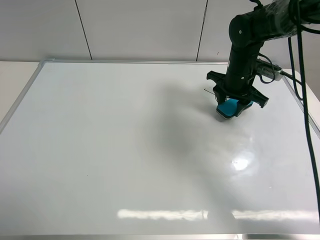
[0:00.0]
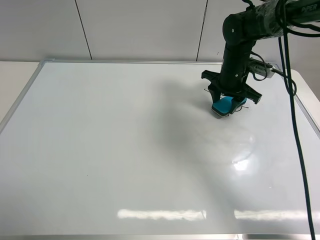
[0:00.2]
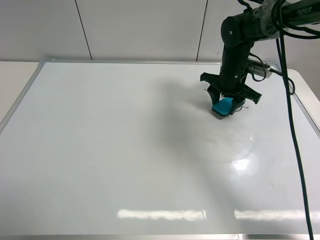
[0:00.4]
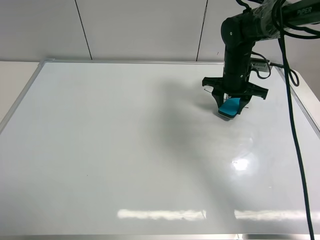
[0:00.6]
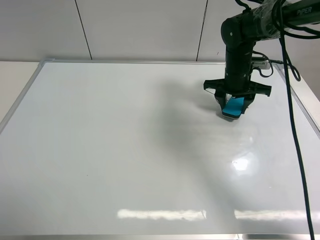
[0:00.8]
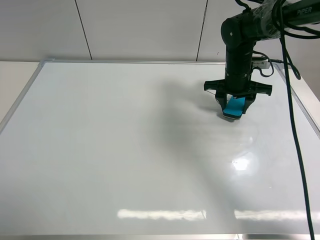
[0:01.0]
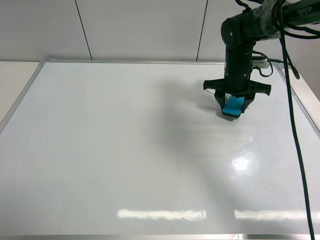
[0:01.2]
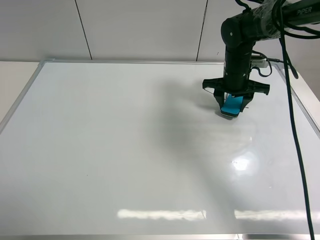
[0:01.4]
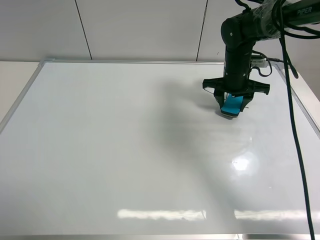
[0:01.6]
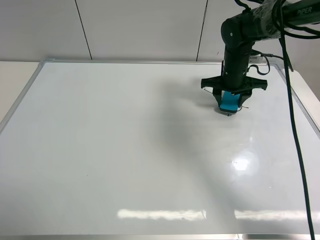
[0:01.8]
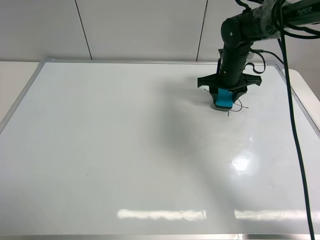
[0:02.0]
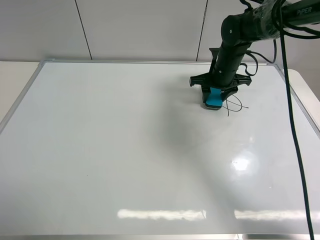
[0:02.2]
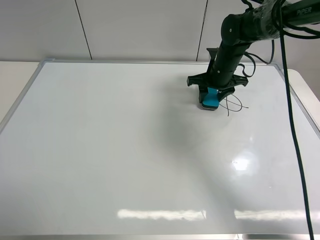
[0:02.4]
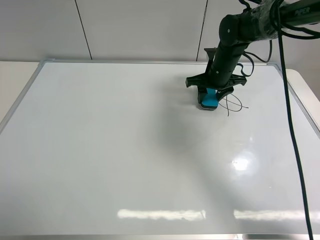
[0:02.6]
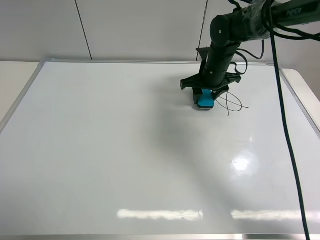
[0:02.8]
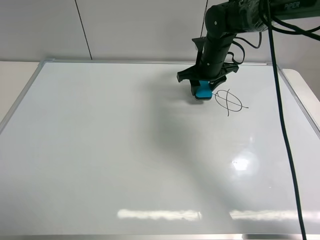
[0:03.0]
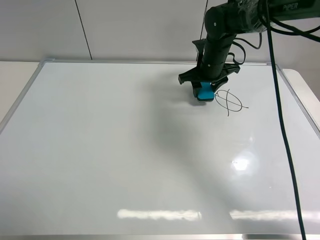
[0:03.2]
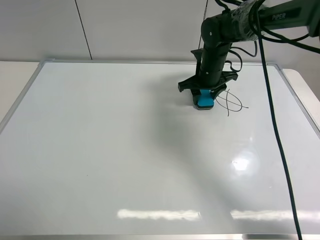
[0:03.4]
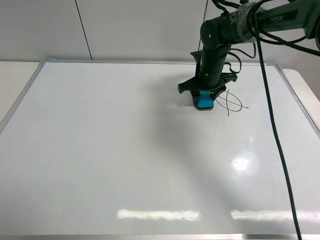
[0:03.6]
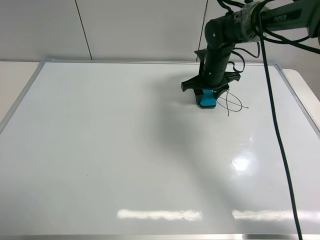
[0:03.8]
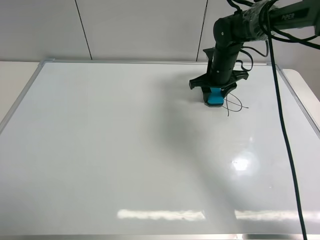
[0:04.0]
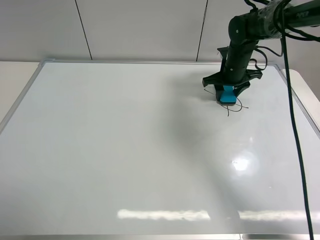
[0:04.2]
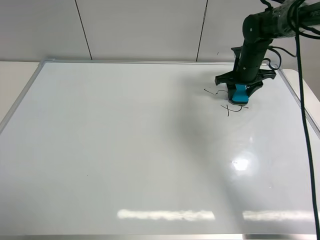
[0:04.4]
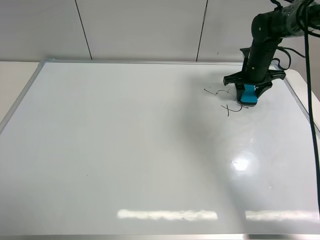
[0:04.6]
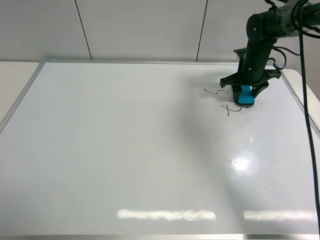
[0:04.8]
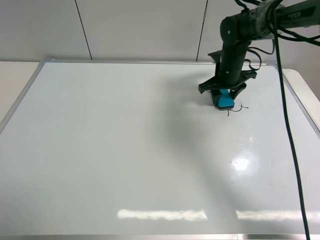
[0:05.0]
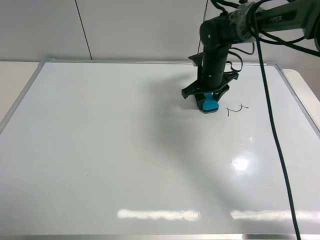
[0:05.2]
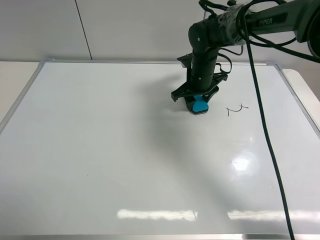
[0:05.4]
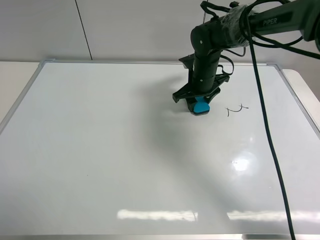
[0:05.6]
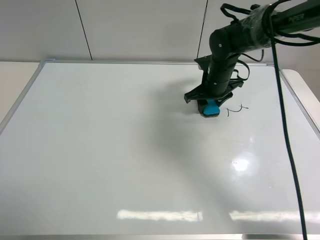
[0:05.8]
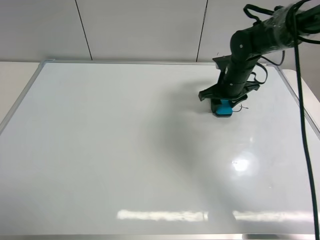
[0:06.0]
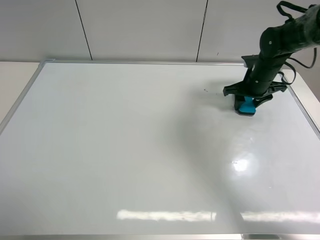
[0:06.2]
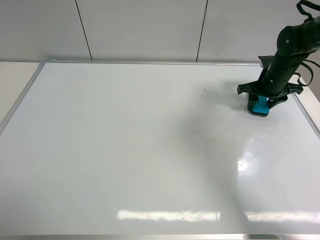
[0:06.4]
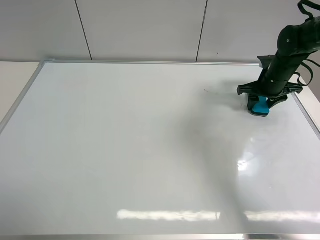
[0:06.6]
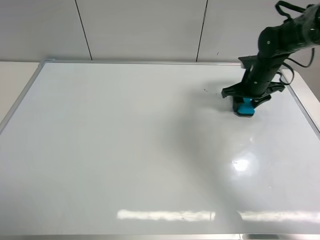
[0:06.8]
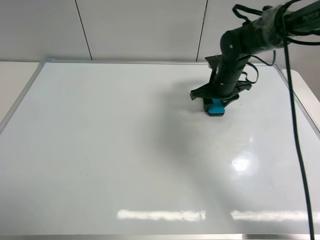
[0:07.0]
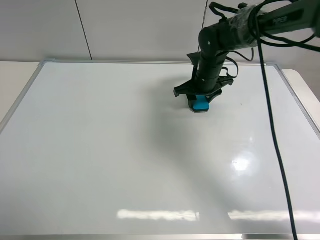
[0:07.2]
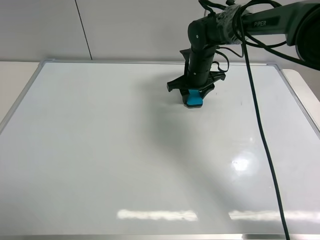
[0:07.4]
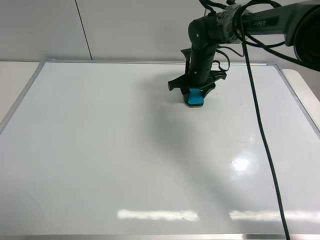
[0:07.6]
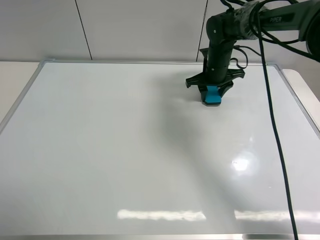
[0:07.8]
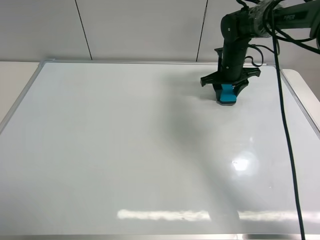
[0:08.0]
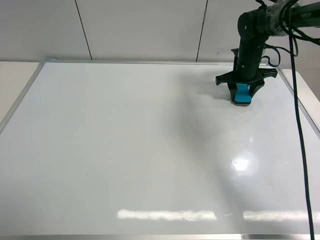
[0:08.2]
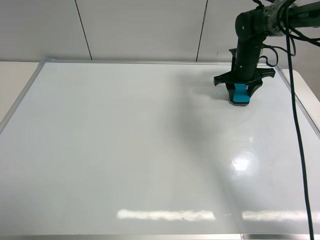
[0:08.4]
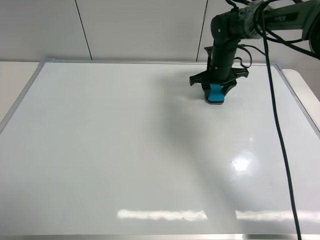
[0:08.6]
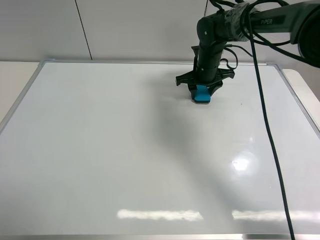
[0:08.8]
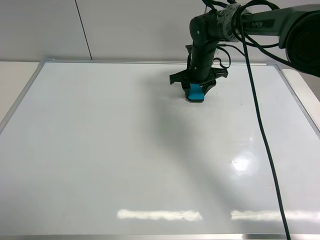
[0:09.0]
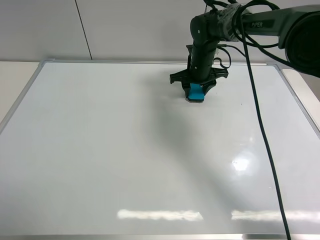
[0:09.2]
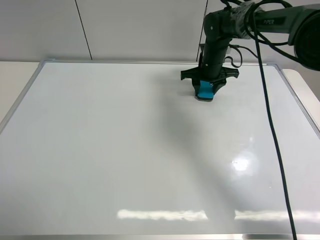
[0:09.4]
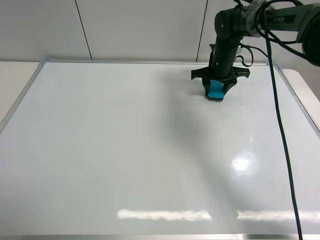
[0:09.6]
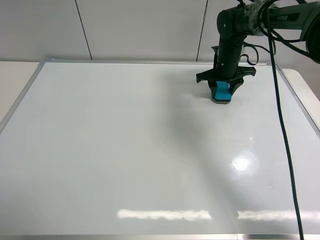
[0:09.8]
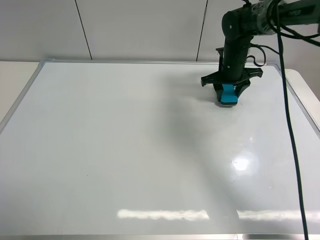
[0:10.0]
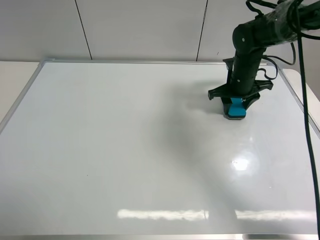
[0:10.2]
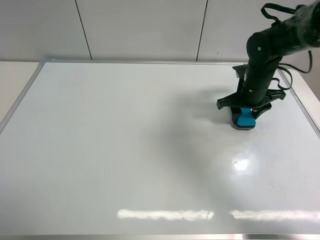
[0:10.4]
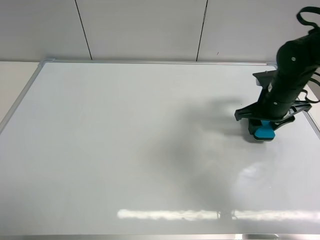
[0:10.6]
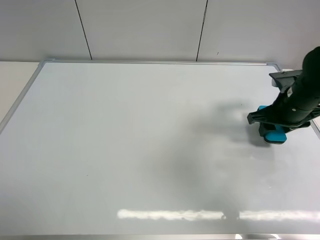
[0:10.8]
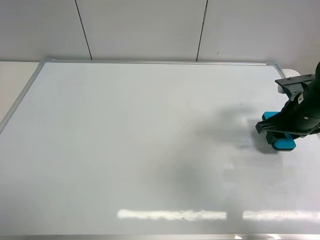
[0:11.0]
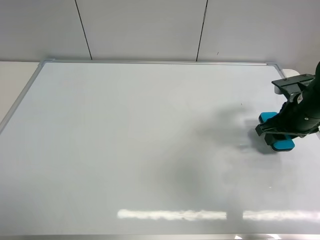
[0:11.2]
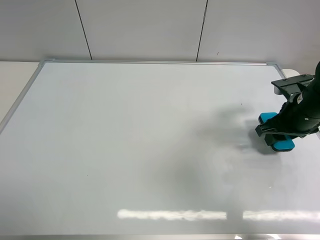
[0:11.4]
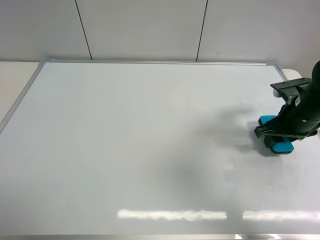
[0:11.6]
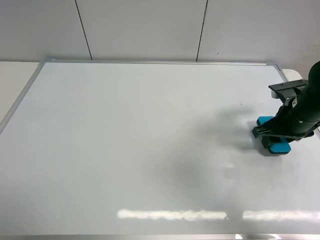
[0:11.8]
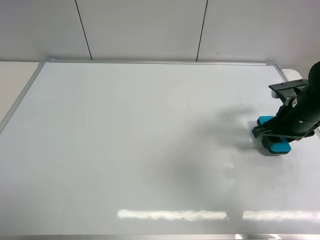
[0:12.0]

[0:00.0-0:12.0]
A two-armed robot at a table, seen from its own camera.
Task of the whole recording: use the left gripper to place the eraser in the right, use the right gripper to pick up the eraser, wipe the notes on the whiteboard clean, and then put it down.
Step, 0:00.0 to 0:09.6: Wipe off the writing on the board with right gripper.
0:01.6 to 0:03.0: The right gripper heads to the left, covering about 5 cm.
0:03.0 to 0:04.4: The right gripper moves to the right, approximately 10 cm.
0:04.4 to 0:06.0: The right gripper shifts roughly 5 cm backward, and goes to the left and returns, some 15 cm each way.
0:06.0 to 0:07.6: The right gripper is displaced to the left by approximately 10 cm.
0:07.6 to 0:09.0: The right gripper travels to the right and back again, approximately 10 cm each way.
0:09.0 to 0:10.4: The right gripper is displaced to the right and backward by about 15 cm.
0:10.4 to 0:12.0: The right gripper heads backward and to the right, covering roughly 10 cm.

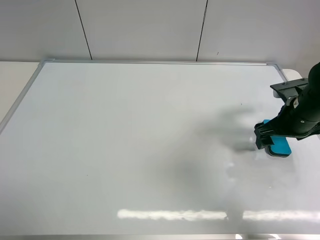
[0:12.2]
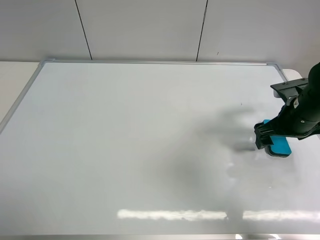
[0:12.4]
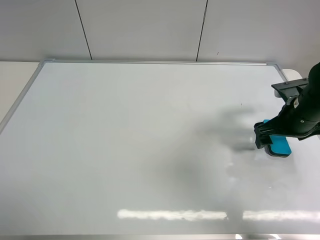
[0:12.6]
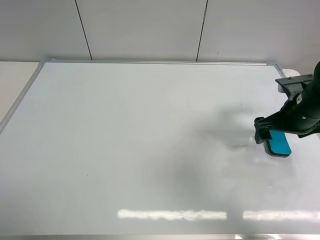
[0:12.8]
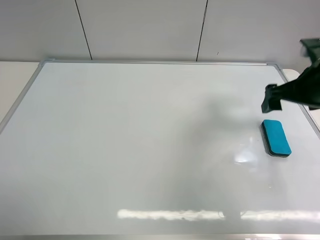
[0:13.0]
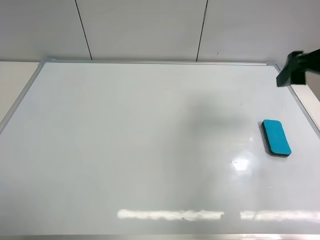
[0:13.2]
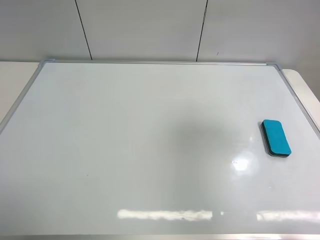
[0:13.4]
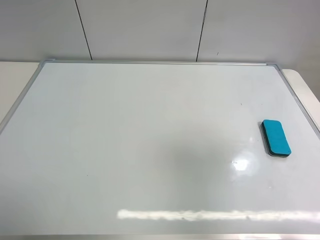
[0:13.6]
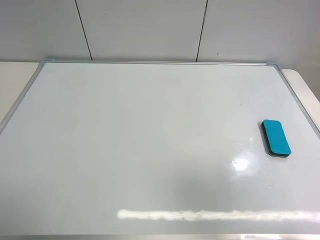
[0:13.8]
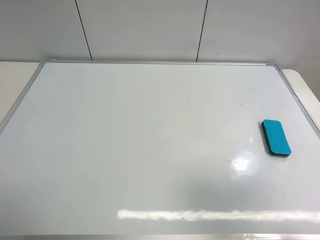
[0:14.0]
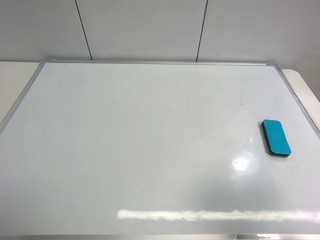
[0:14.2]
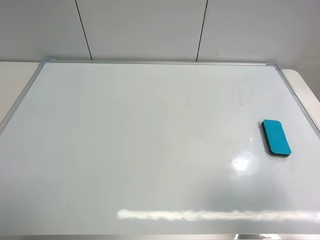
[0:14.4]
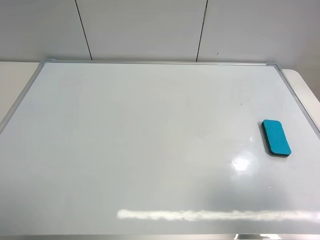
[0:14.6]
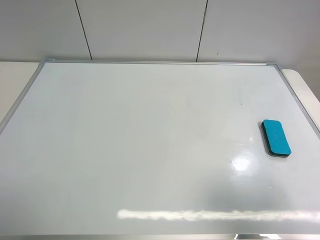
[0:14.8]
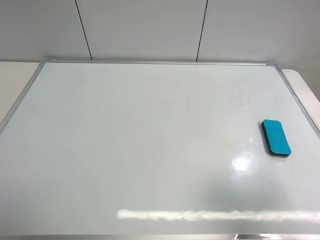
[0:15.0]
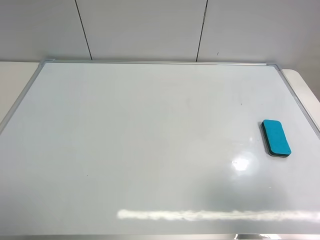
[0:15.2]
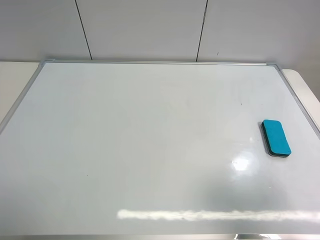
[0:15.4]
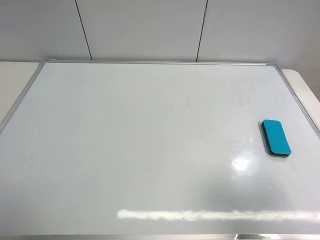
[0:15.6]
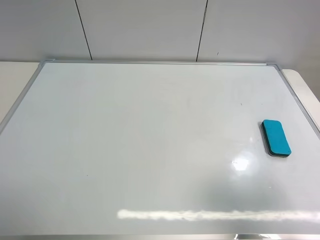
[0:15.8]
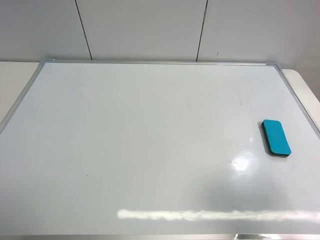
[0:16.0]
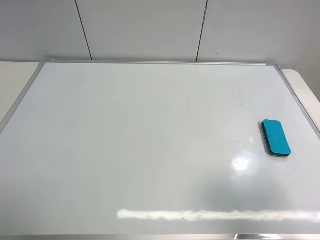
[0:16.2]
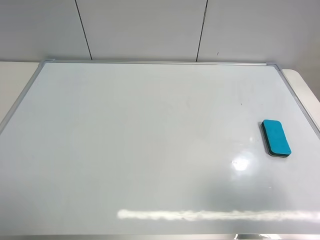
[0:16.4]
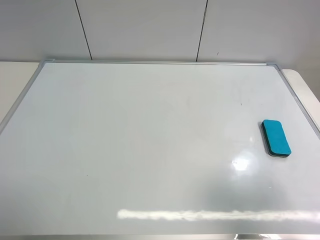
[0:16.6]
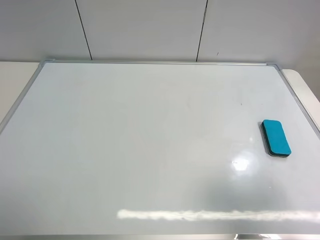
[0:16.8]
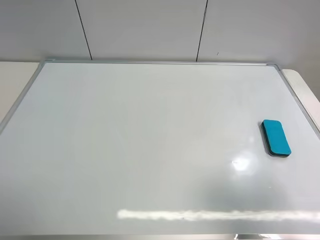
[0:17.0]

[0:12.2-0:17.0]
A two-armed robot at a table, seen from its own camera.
Task of the whole recording: use the left gripper to place the eraser in the right, use the right gripper to pick up the eraser, wipe the notes on the whiteboard clean, and then put it down.
0:12.2 to 0:13.8: The right gripper goes about 35 cm backward and upward.
0:13.8 to 0:15.4: The right gripper travels downward by some 10 cm.
0:15.4 to 0:17.0: Neither gripper changes place.
